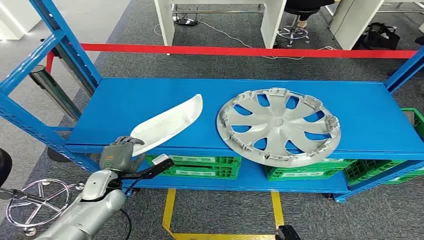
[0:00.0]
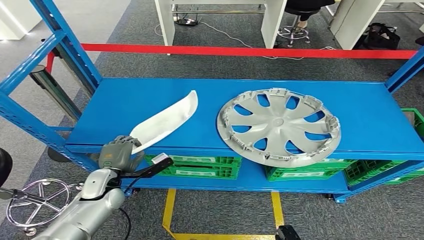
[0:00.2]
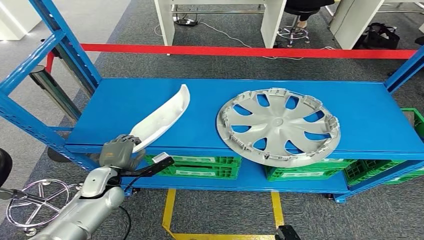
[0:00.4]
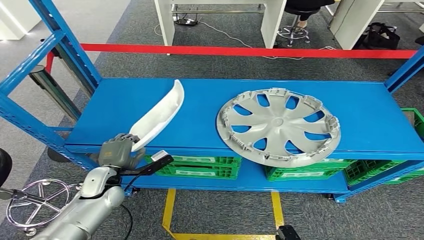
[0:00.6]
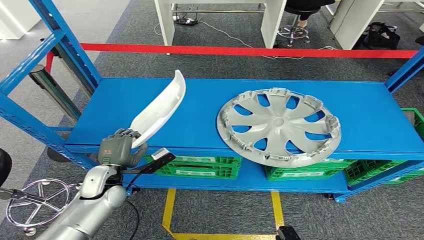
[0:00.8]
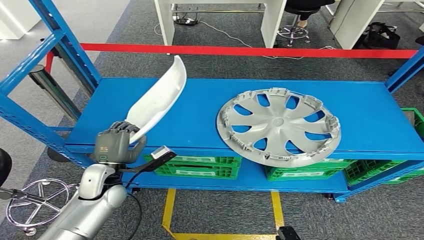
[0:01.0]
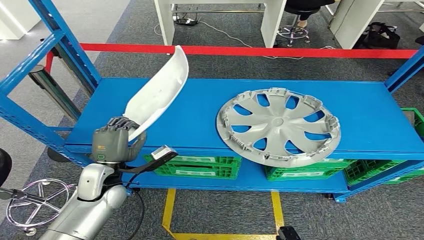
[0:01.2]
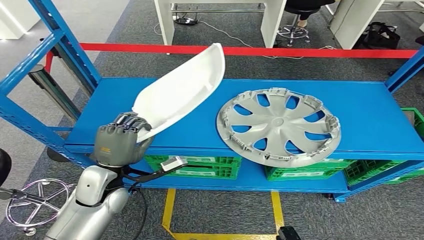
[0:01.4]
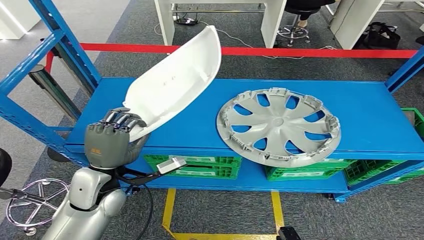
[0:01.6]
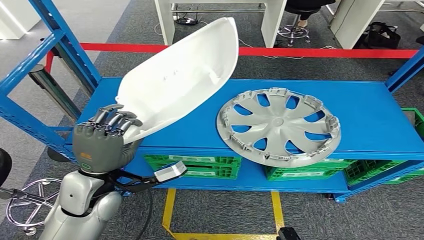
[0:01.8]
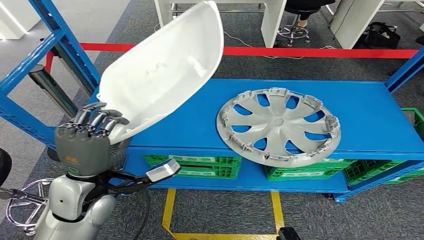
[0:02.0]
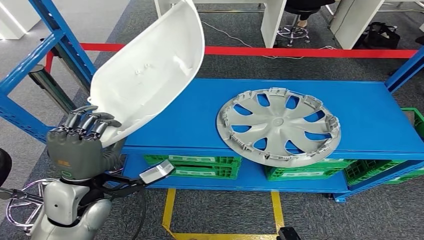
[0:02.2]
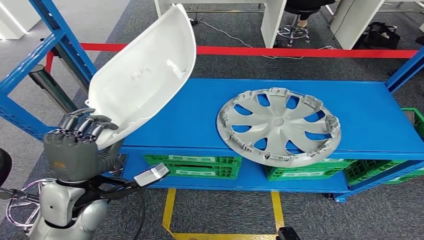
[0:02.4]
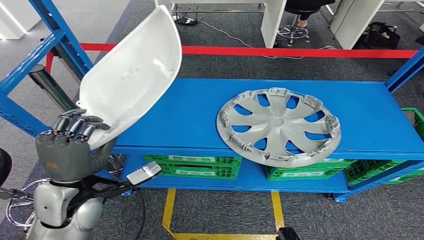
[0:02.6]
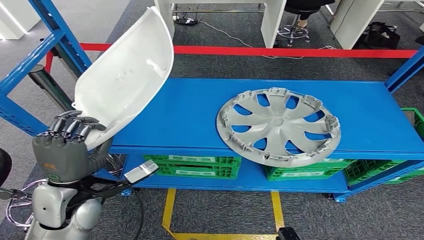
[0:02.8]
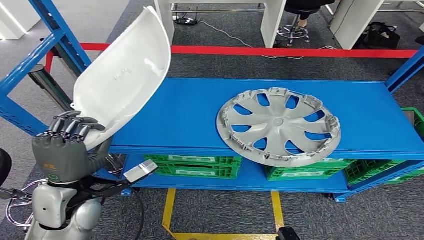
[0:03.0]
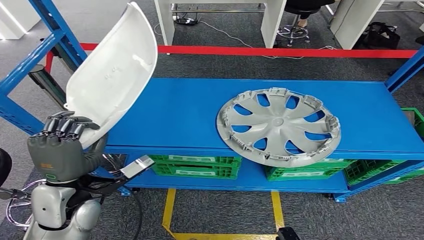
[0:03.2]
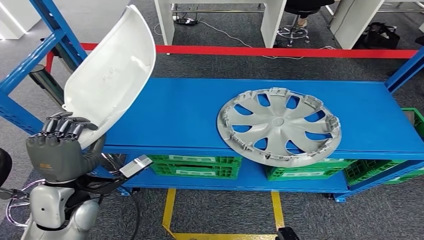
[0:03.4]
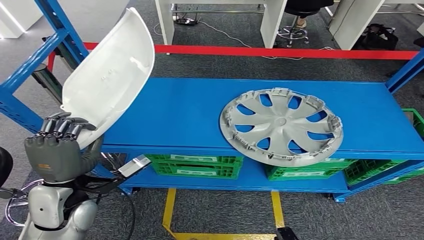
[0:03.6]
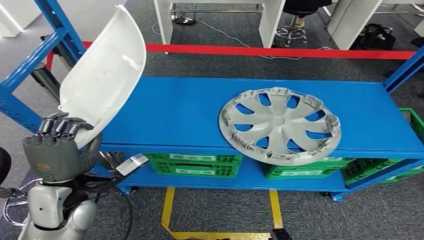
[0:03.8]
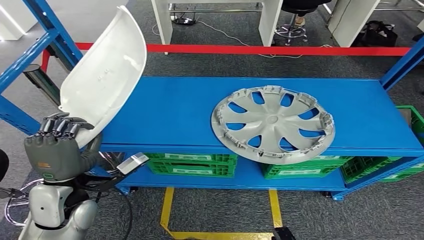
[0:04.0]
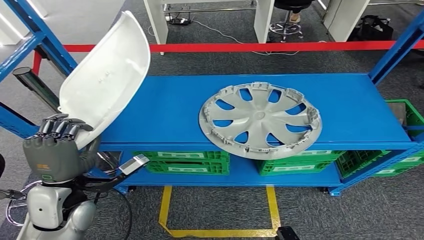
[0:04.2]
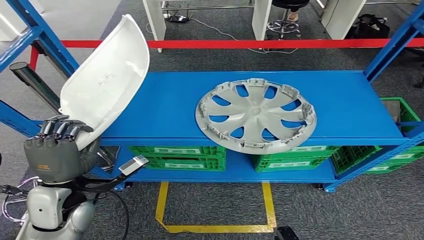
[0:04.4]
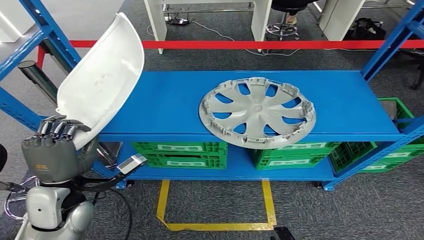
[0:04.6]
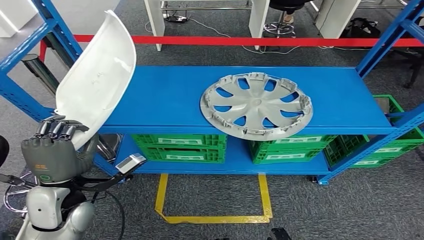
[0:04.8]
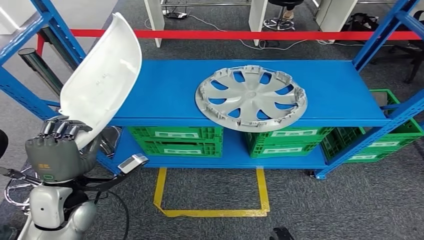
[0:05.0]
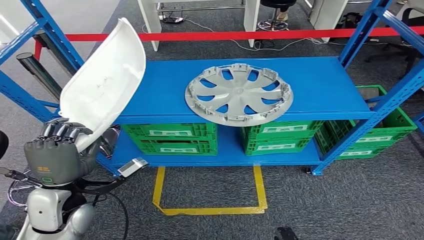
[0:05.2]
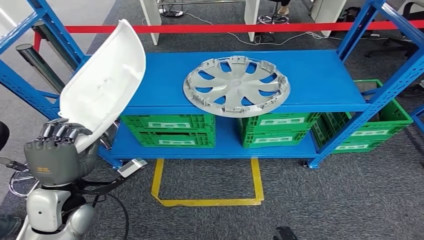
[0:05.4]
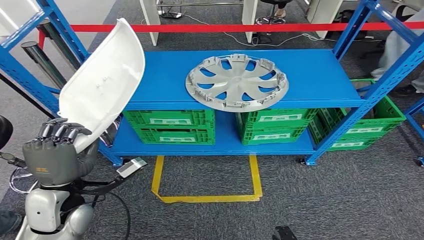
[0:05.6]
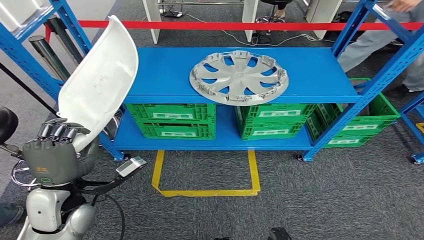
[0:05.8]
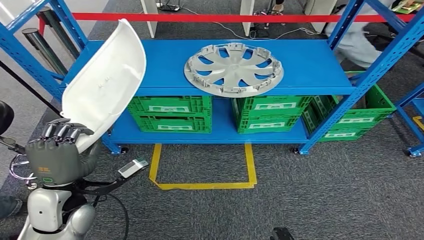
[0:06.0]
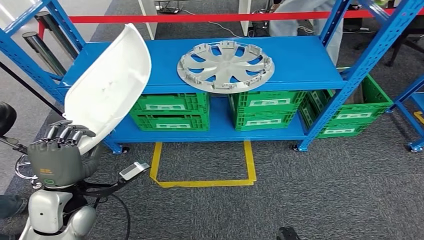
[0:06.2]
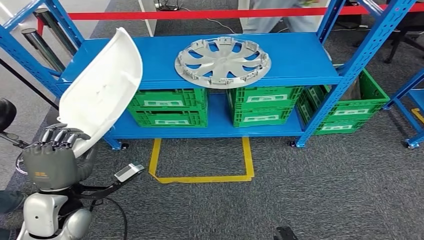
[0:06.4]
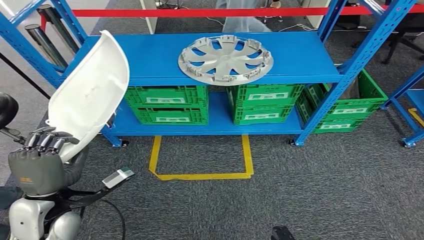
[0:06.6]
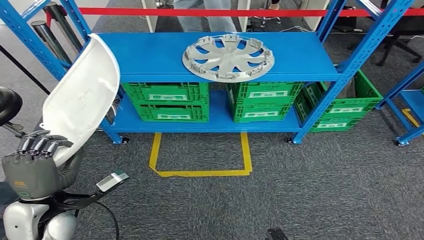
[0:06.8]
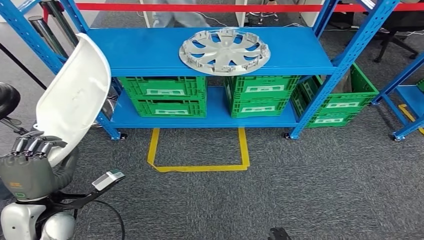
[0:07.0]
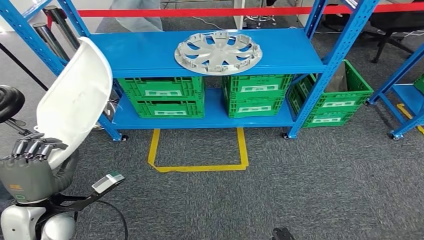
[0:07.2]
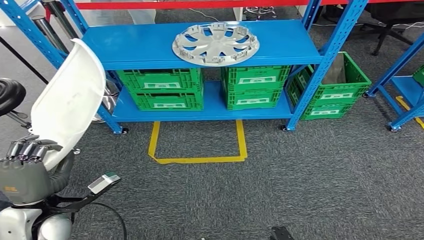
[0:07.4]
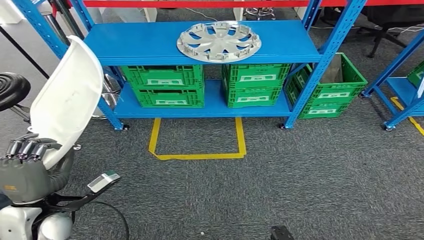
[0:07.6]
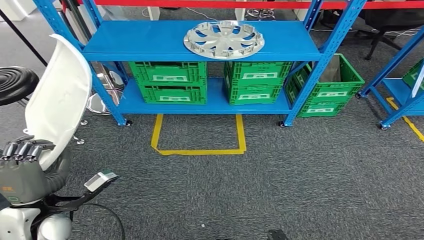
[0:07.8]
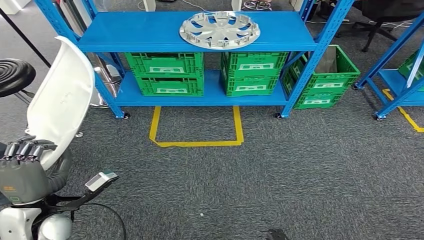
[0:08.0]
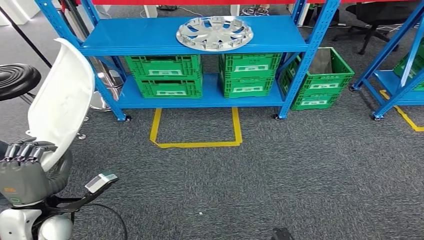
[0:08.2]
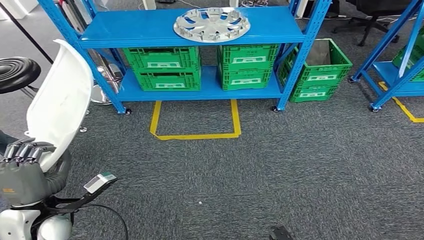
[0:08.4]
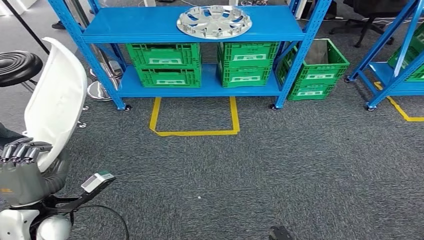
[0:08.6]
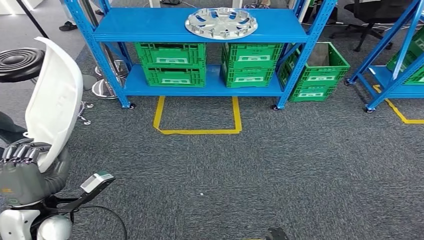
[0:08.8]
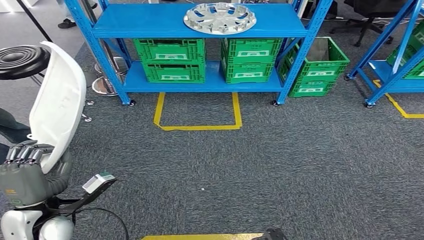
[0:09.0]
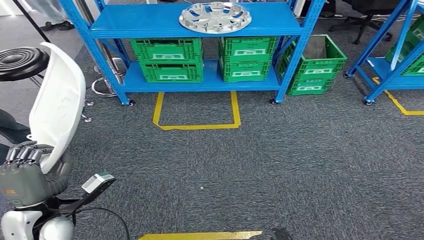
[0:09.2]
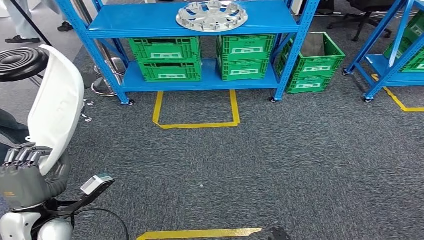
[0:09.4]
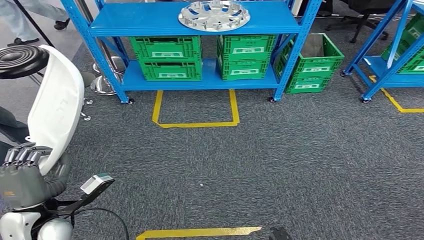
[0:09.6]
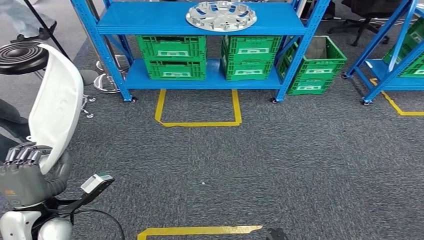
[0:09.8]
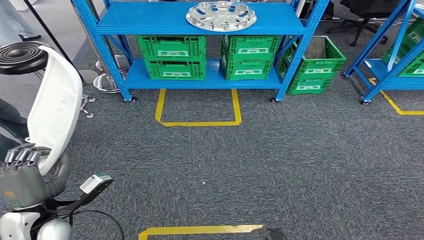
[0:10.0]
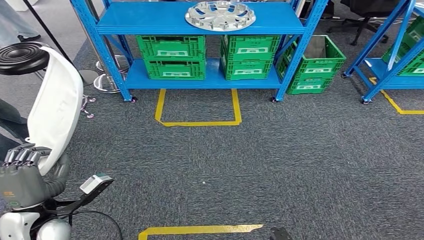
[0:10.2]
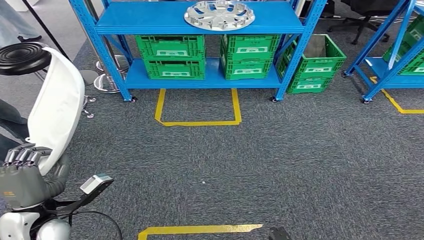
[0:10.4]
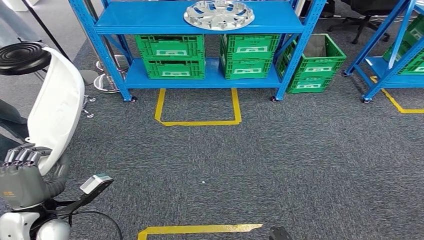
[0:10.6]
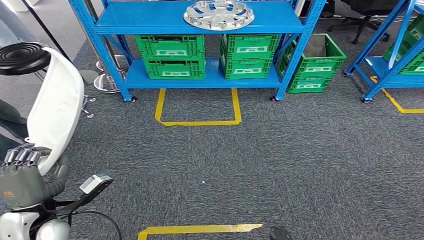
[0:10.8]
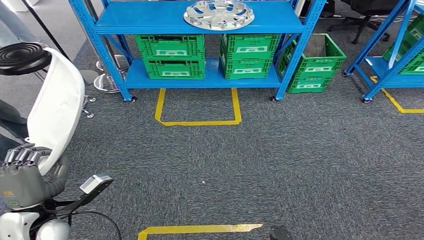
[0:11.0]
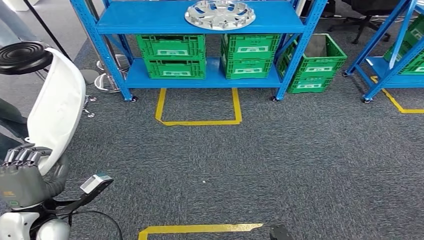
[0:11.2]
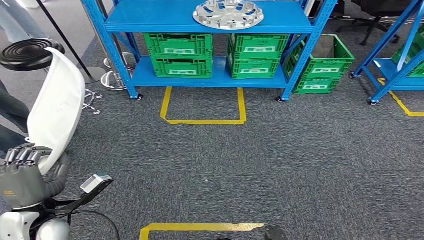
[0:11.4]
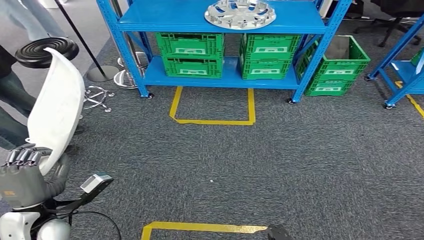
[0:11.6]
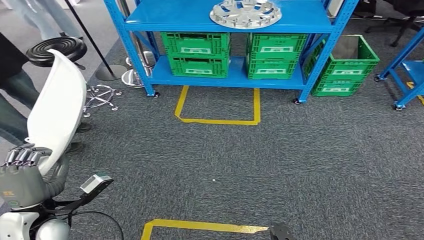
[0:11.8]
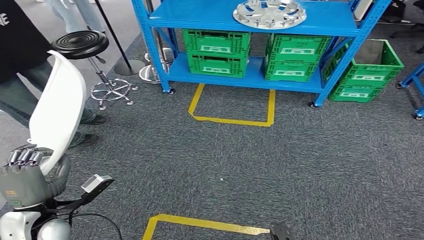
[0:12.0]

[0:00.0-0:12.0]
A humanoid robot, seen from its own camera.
Step, 0:00.0 to 0:02.0: Pick up the small component from the shelf.
0:01.6 to 0:03.0: The left hand changes place by approximately 5 cm.

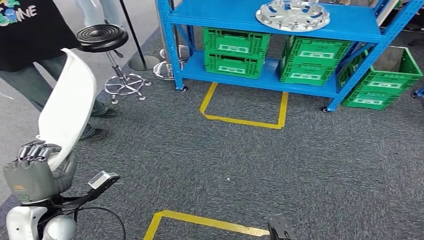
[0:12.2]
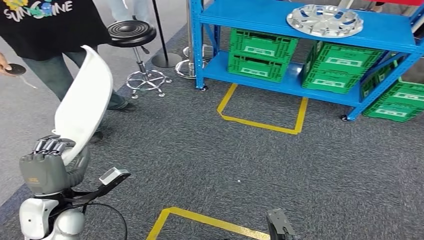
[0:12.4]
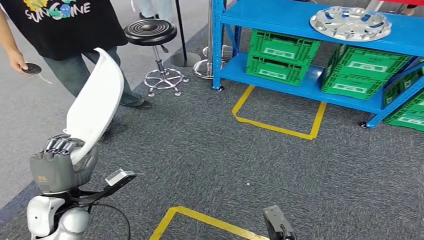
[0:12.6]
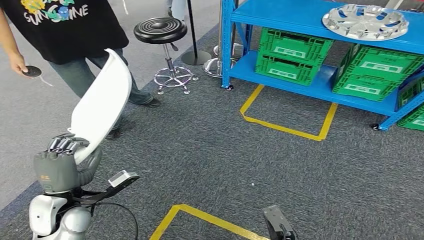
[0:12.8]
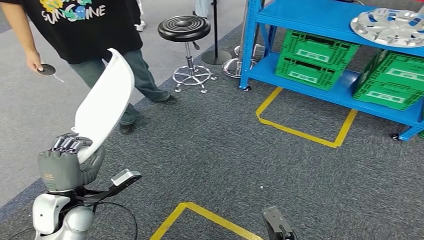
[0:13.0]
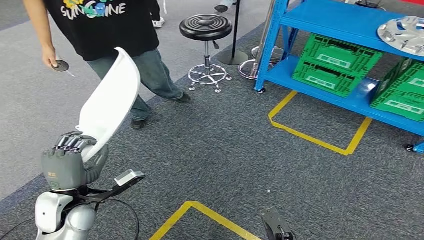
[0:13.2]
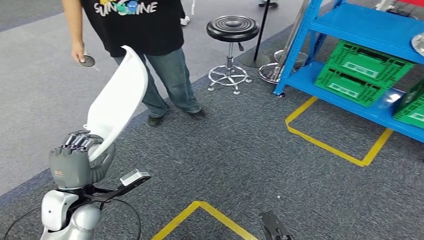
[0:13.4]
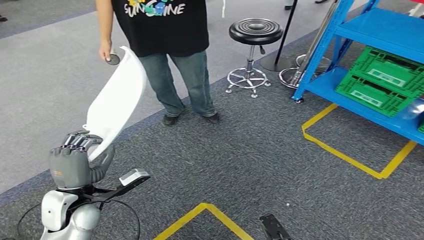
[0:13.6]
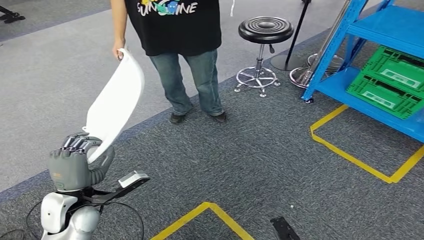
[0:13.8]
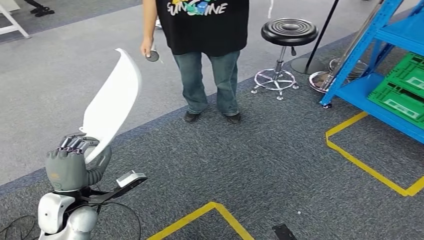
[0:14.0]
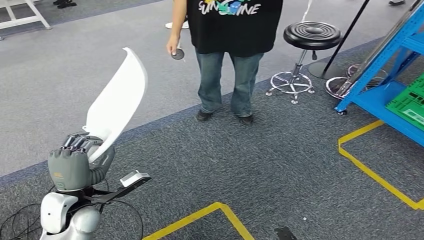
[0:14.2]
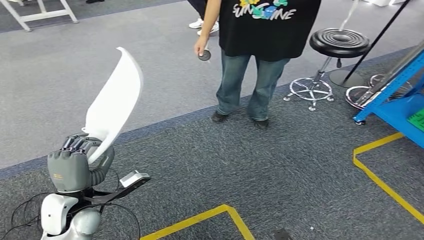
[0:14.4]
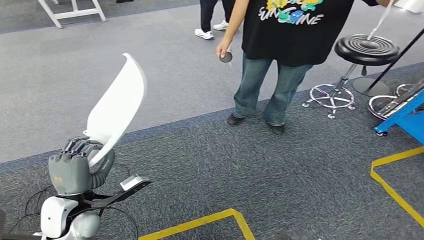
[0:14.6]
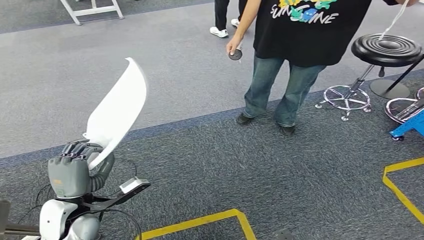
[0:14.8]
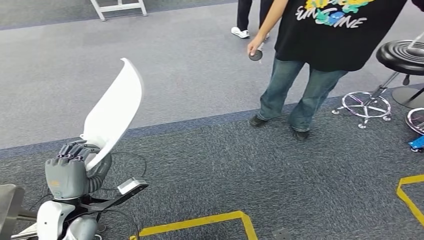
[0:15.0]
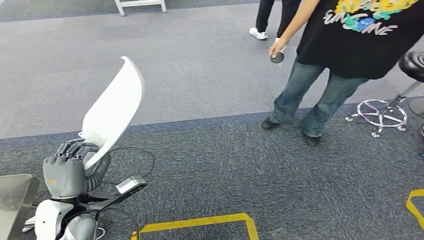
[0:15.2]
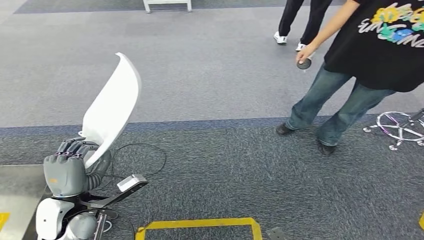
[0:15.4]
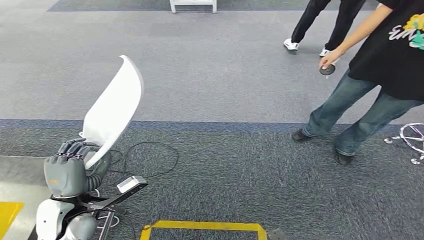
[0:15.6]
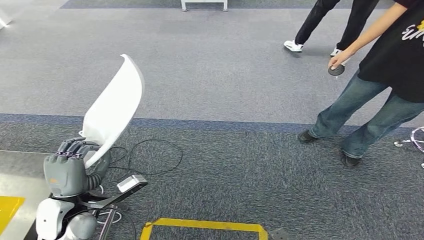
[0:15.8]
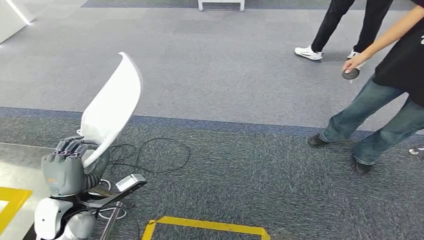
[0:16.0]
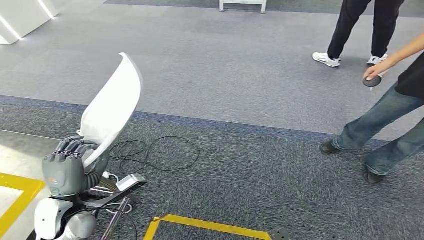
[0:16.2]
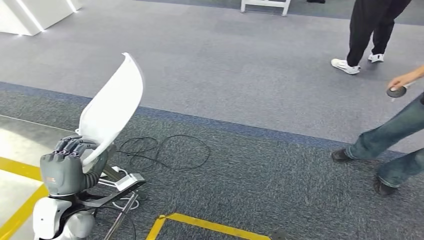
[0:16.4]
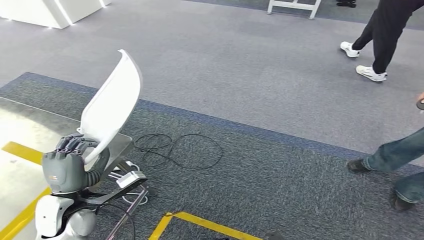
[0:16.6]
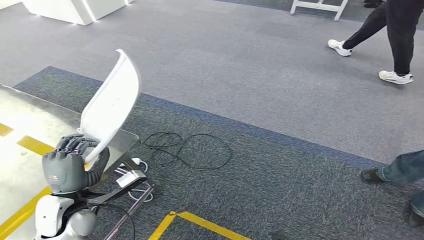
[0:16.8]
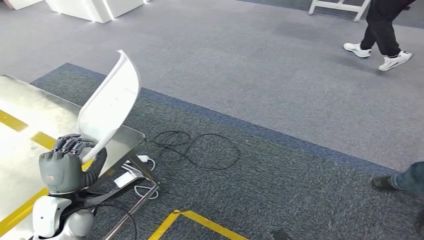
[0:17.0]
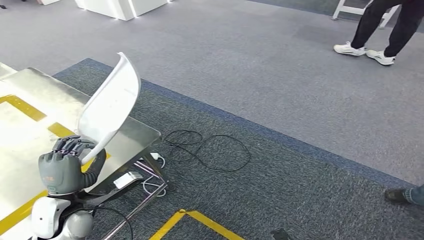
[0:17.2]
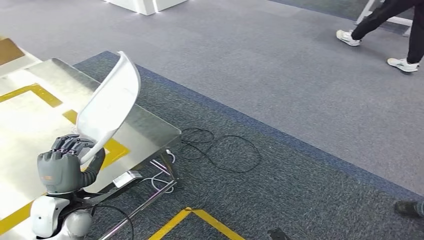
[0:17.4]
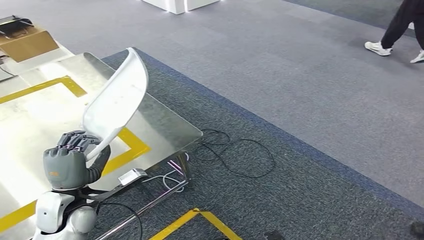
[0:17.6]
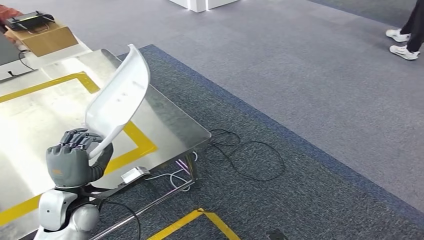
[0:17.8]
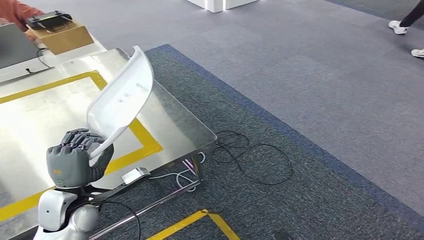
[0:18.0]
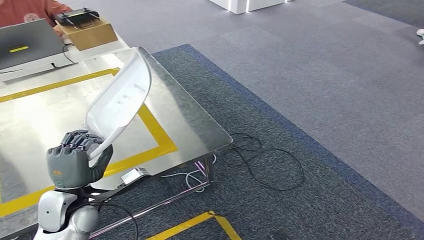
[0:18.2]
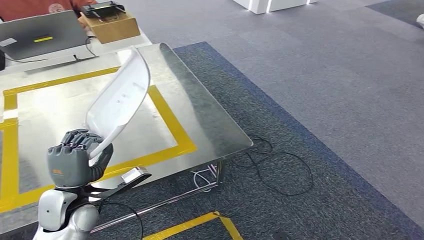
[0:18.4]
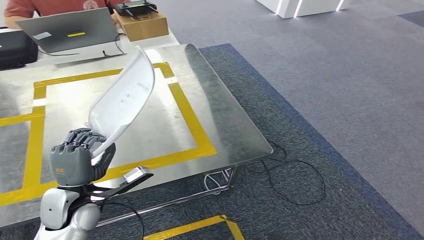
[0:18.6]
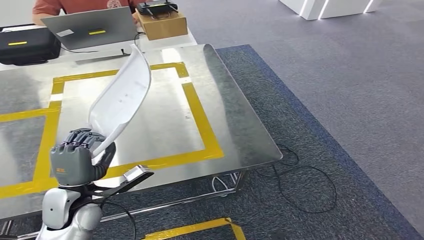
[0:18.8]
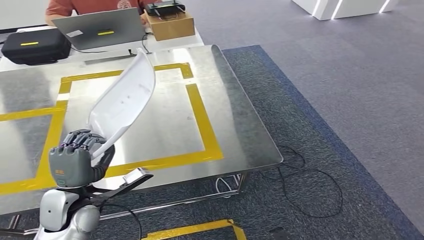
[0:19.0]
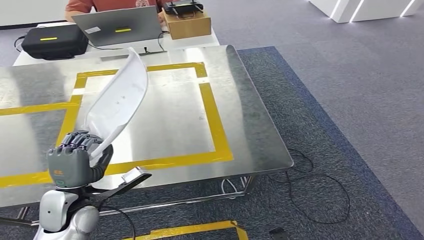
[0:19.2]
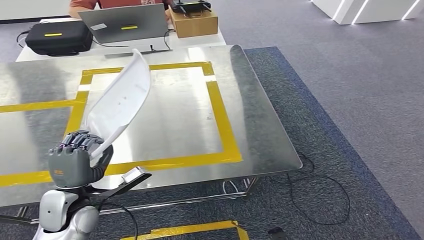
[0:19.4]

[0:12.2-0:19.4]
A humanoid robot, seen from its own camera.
Step, 0:12.2 to 0:19.0: Move the small component to the workbench.
